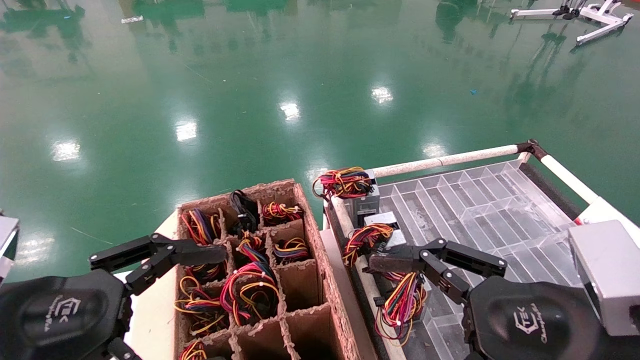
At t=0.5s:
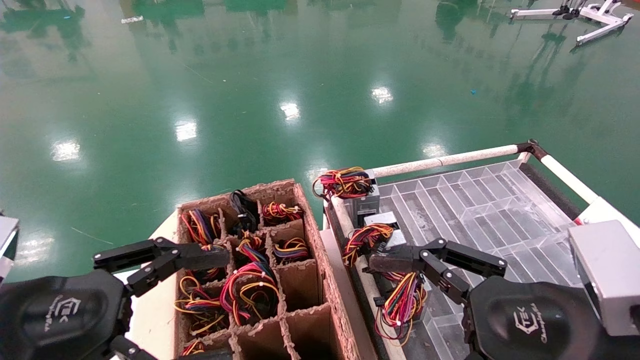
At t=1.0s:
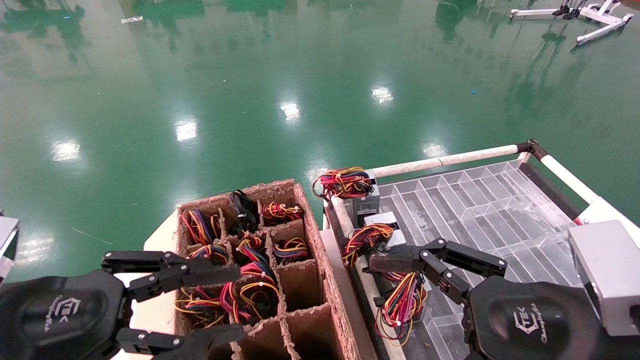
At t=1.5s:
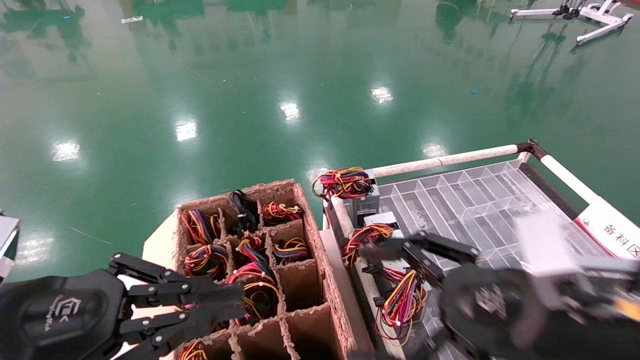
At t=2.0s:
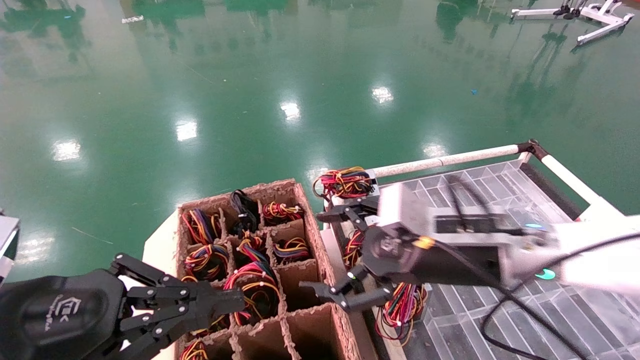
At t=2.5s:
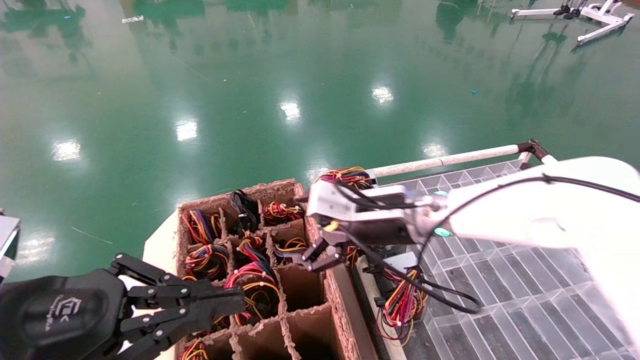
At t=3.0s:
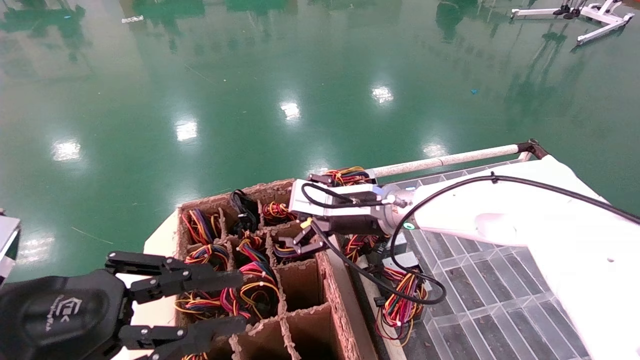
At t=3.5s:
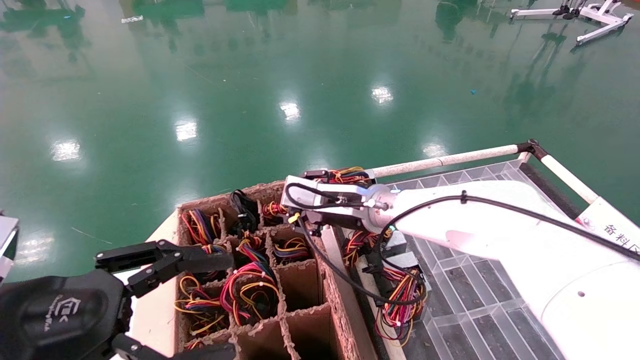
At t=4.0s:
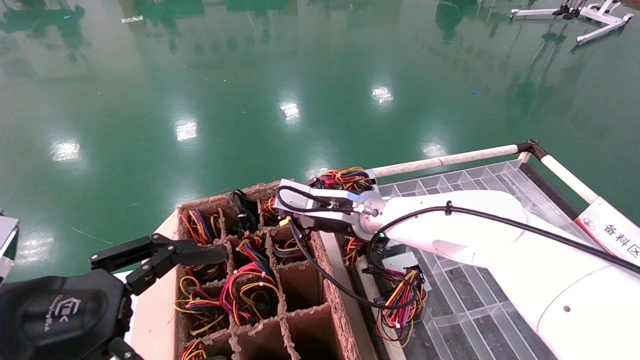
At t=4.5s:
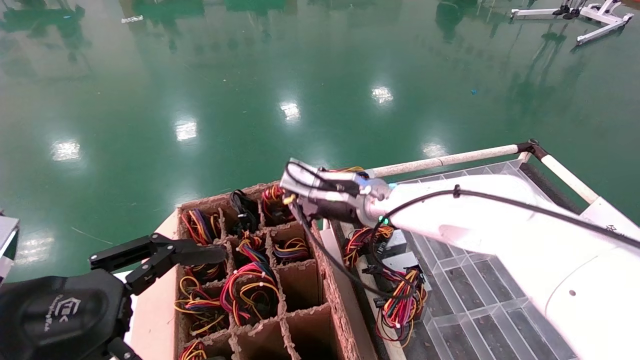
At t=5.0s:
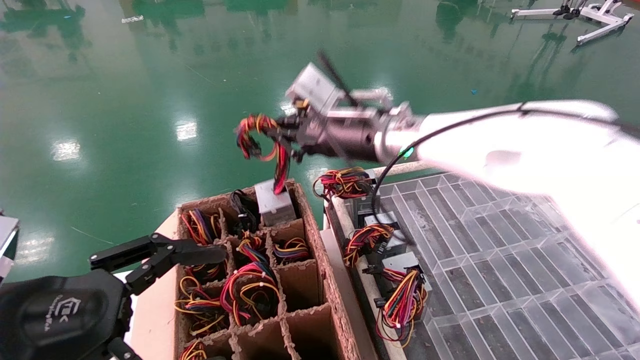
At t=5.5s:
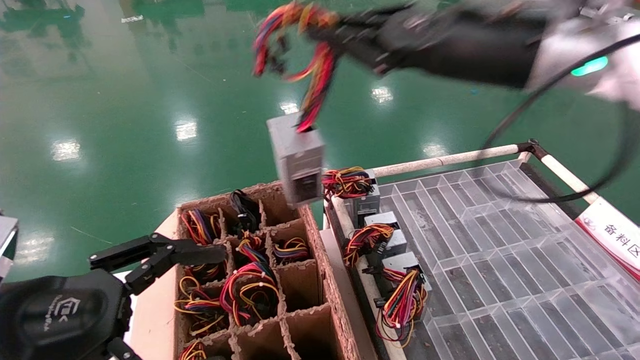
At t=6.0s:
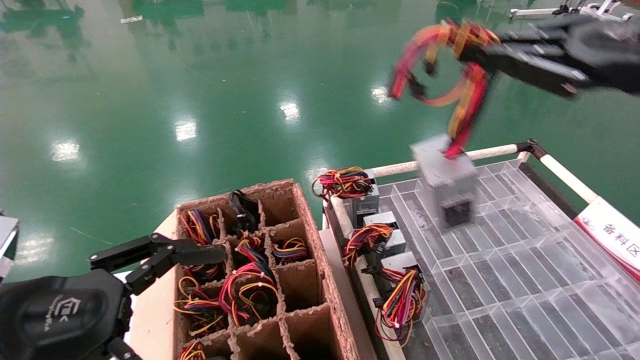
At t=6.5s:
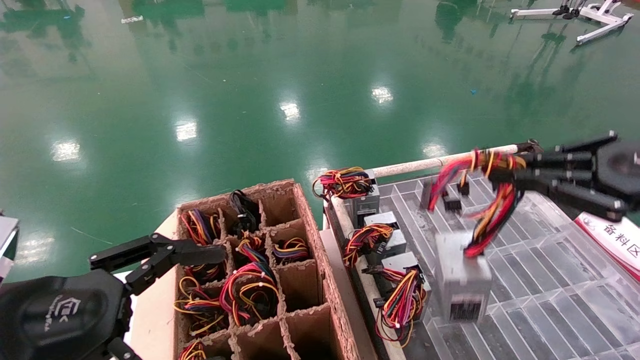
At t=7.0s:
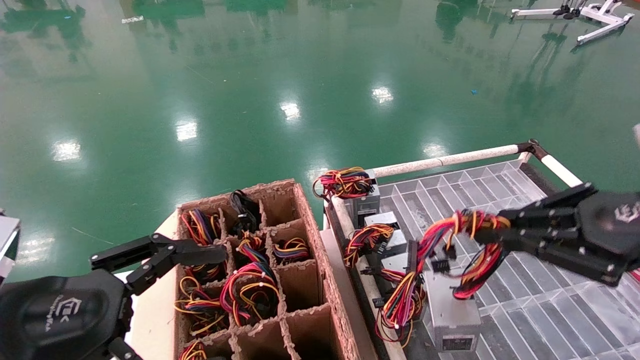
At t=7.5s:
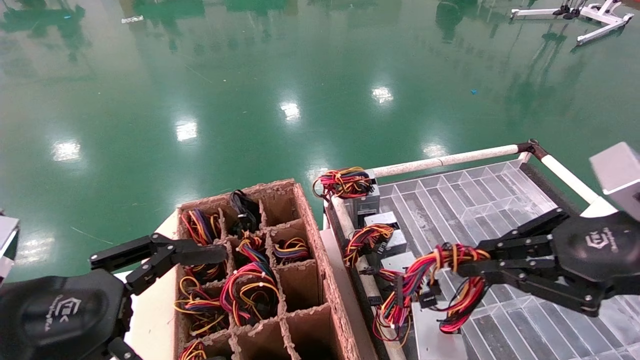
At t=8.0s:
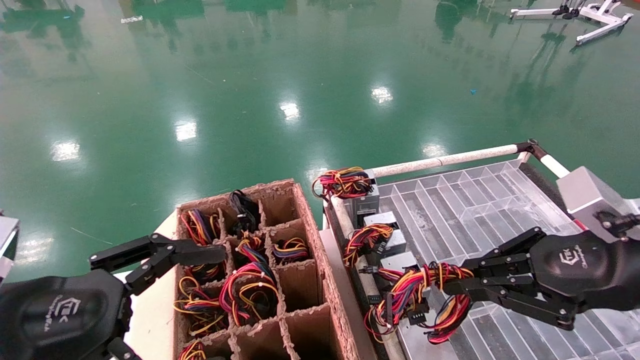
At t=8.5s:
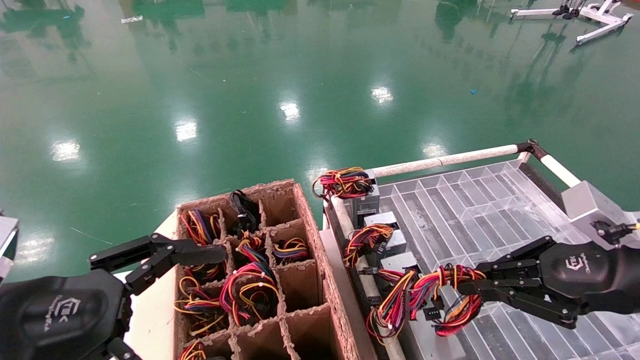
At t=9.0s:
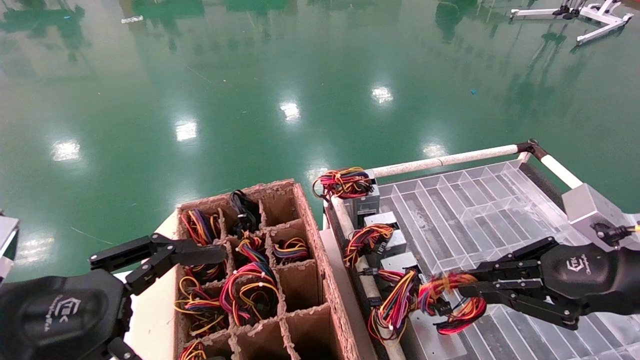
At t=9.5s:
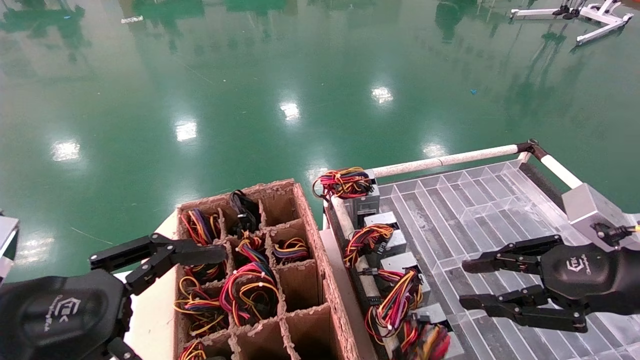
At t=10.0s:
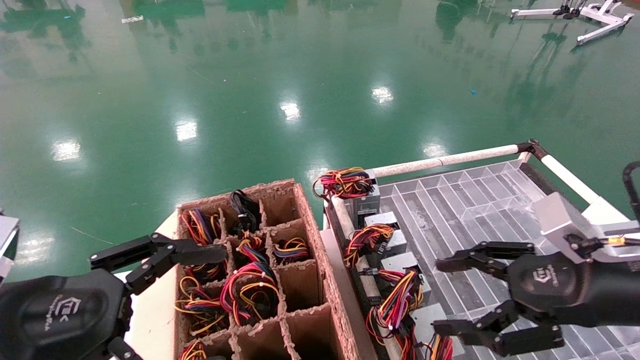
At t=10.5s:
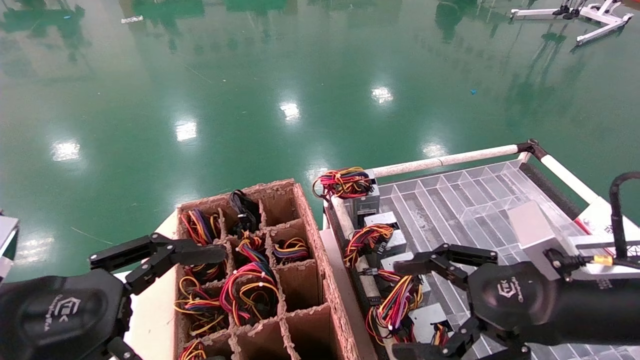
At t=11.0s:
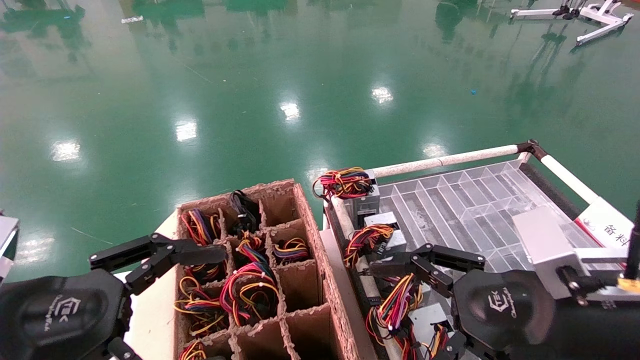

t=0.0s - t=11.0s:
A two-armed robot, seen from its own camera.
Step, t=2.0s - t=4.0s: Grab and lift the power supply from the large box.
Step, t=4.5s - t=9.0s: Place the power supply on the operating table.
t=0.0s - t=2.0s: The right gripper goes approximately 15 cm forward and to the left. The left gripper closes.
t=2.0s - t=3.5s: The left gripper opens up. The right gripper is displaced forward and to the left by approximately 15 cm, and closes up.
t=3.5s - t=5.5s: The left gripper opens. Meanwhile the right gripper heads upward, backward and to the right, covering some 30 cm, and closes.
t=5.5s - t=7.5s: The right gripper moves downward, to the right and backward, approximately 20 cm.
t=7.5s - t=9.0s: The right gripper moves about 5 cm.
t=9.0s - t=11.0s: The right gripper moves to the left, about 10 cm, and opens its fingers.

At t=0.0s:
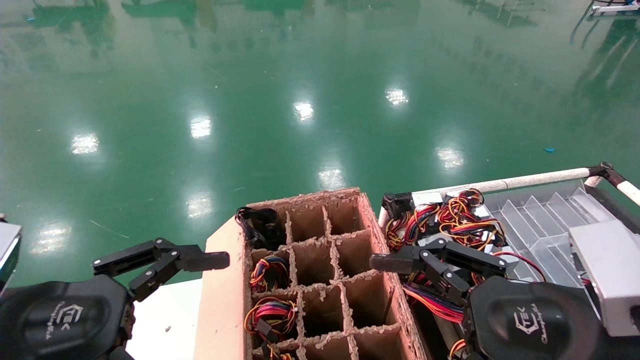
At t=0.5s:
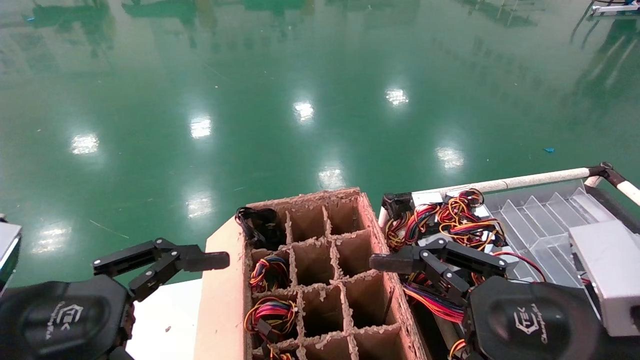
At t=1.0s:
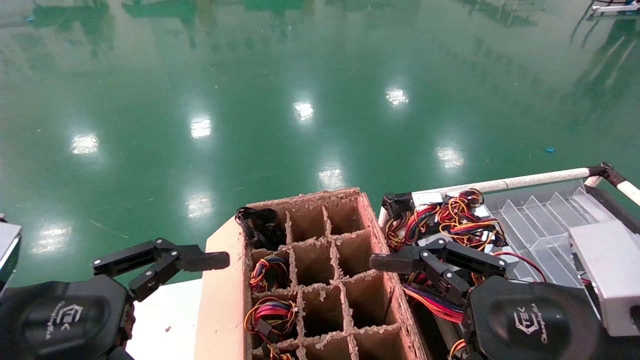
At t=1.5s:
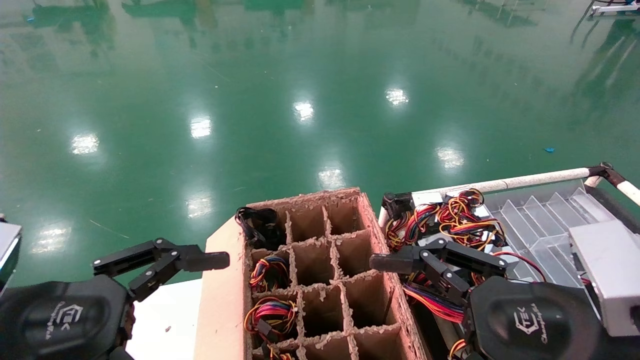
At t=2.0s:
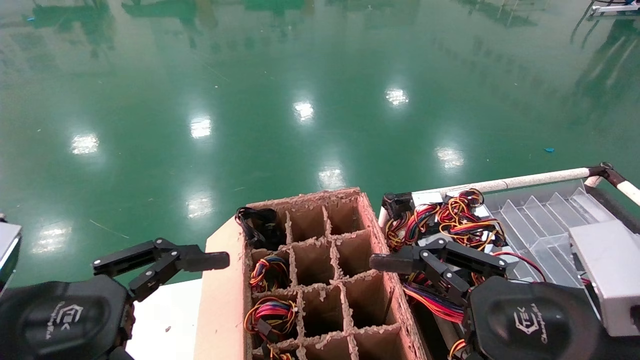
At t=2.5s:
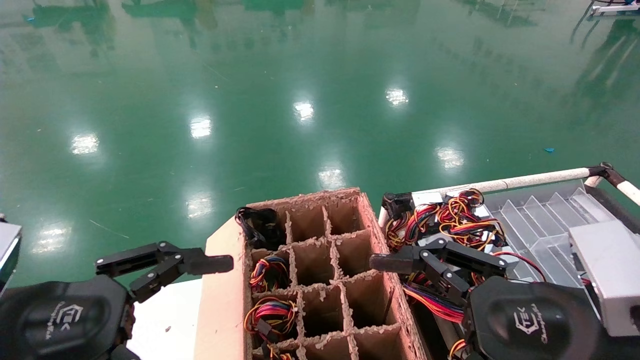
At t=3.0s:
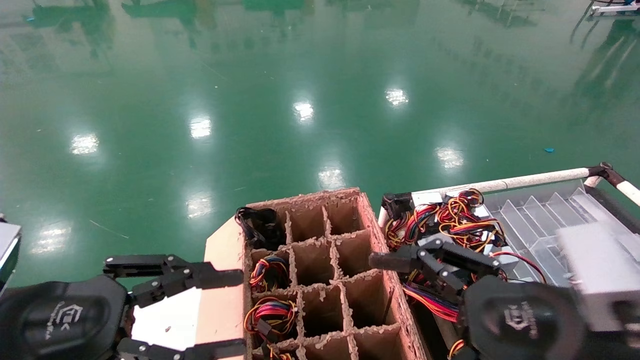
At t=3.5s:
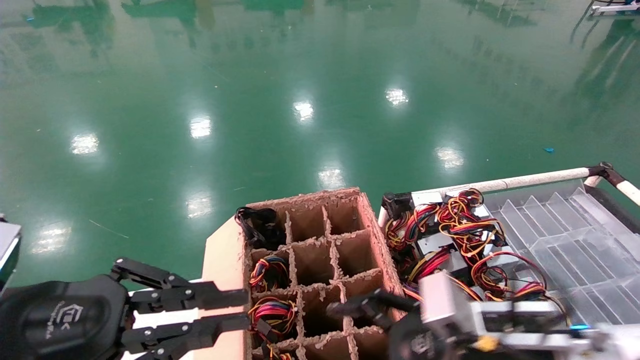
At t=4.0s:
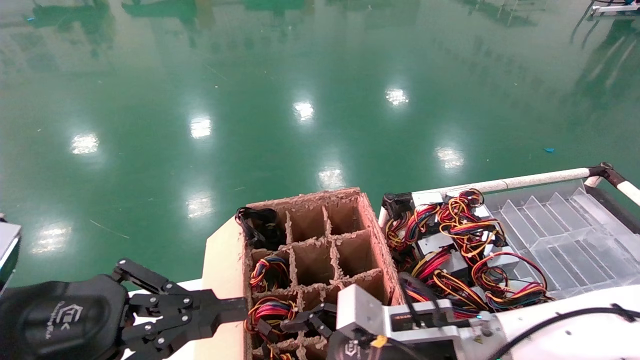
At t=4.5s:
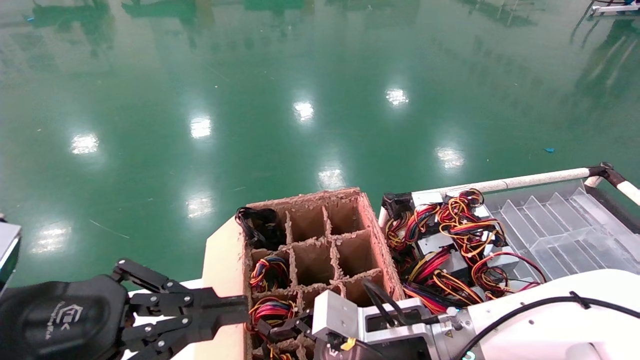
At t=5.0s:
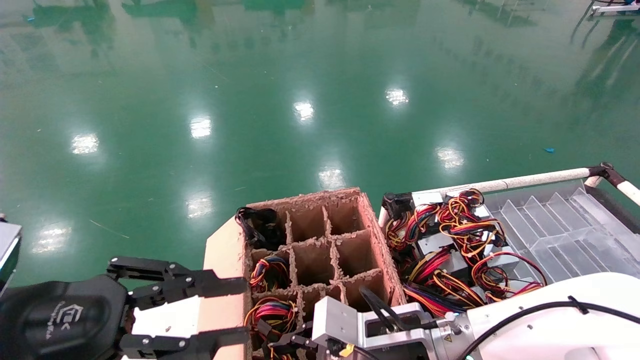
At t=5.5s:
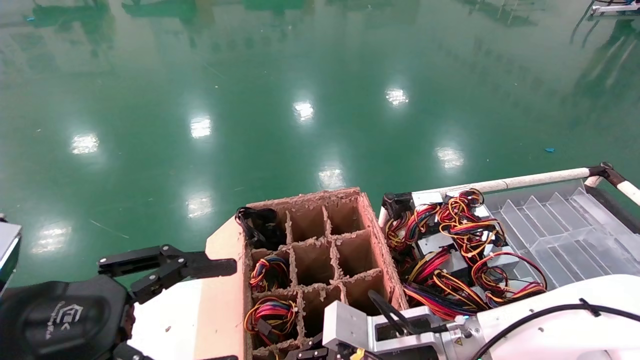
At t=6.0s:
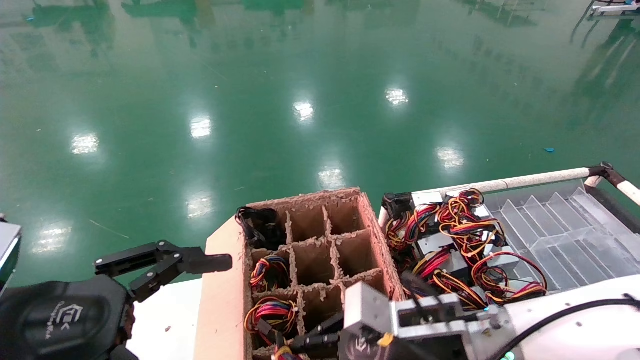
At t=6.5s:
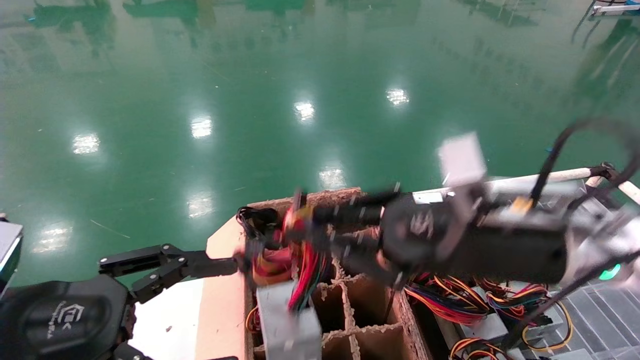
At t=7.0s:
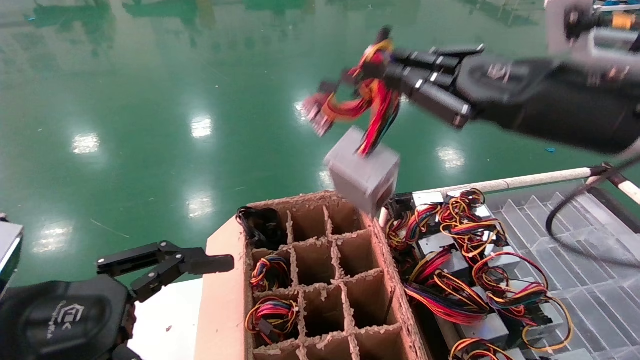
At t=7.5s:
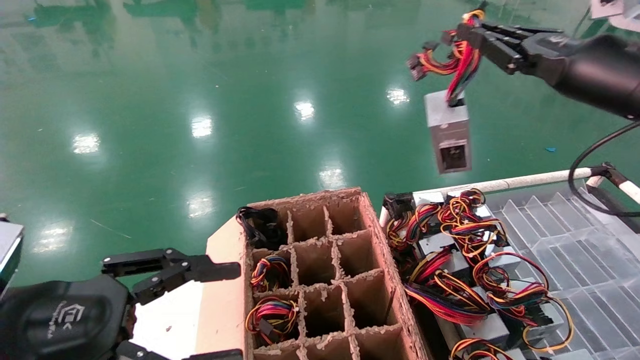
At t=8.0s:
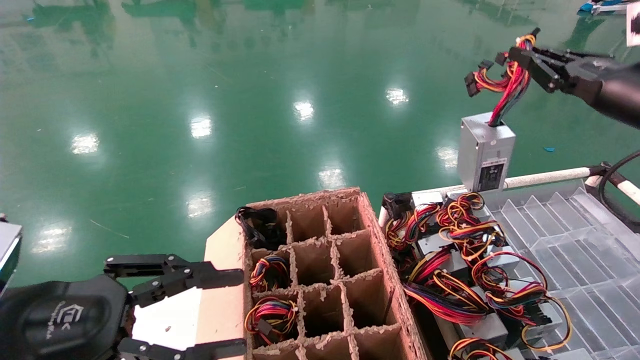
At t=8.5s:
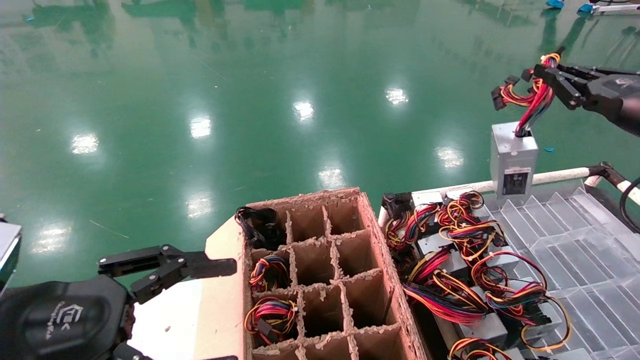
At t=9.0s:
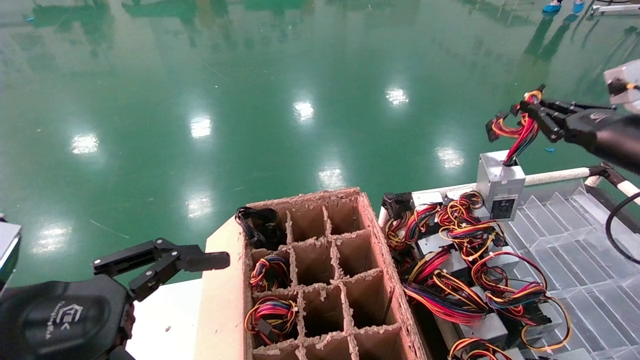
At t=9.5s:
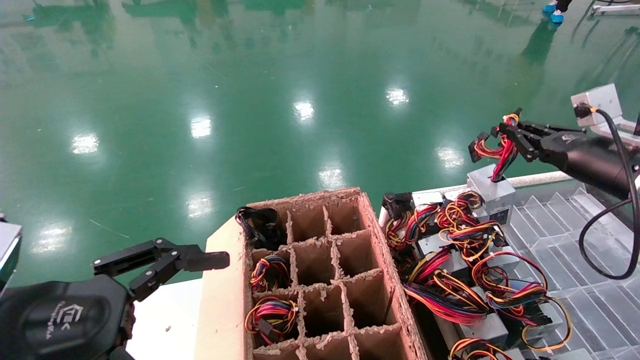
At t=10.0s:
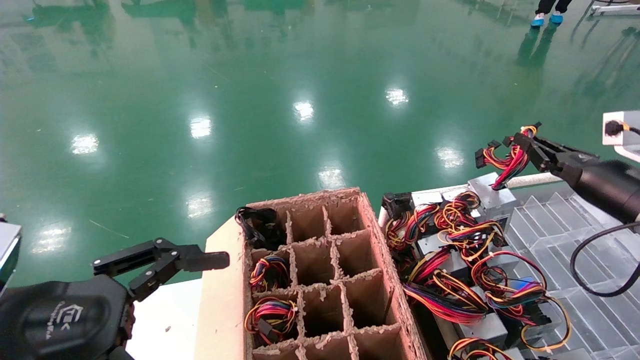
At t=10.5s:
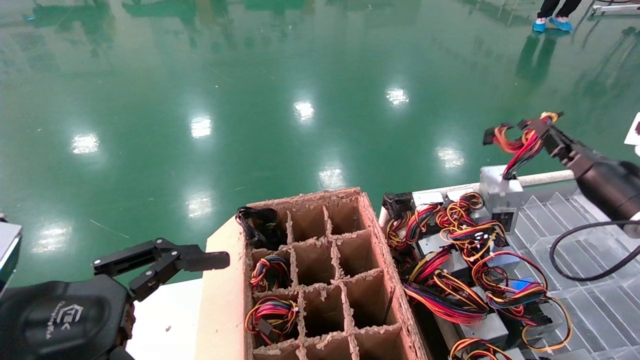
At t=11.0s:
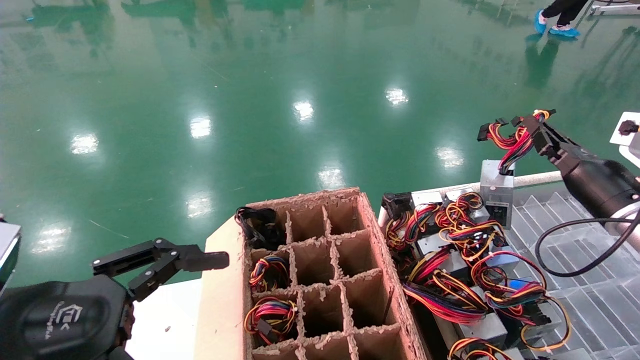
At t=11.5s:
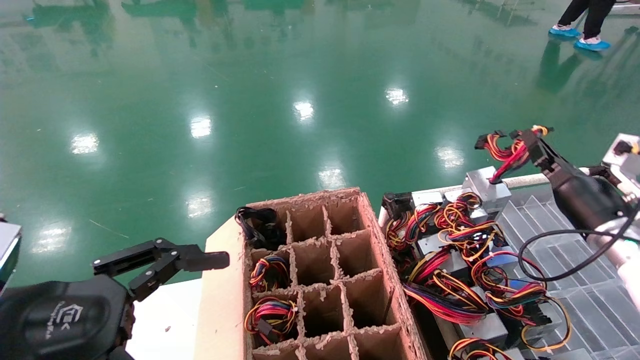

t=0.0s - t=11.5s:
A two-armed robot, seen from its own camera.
Step, t=3.0s - t=5.5s: Grab and lift the power supply from the large box.
t=0.0s - t=2.0s: Both grippers stay put.
t=2.0s - t=4.0s: The right gripper heads forward, to the left and downward, covering roughly 20 cm. Meanwhile the left gripper closes up.
t=4.0s - t=6.0s: The left gripper opens its fingers, while the right gripper closes its fingers.
t=6.0s - t=7.5s: The right gripper shifts approximately 35 cm upward and to the right.
t=7.5s - t=9.5s: The right gripper moves downward, to the right and forward, roughly 15 cm.
t=9.5s - t=11.5s: The right gripper is displaced downward by roughly 10 cm.
